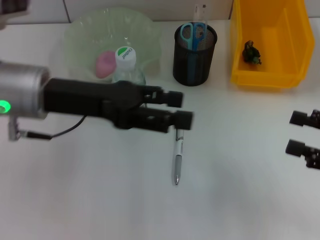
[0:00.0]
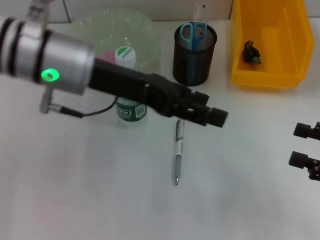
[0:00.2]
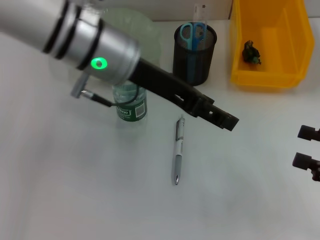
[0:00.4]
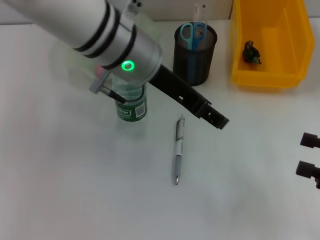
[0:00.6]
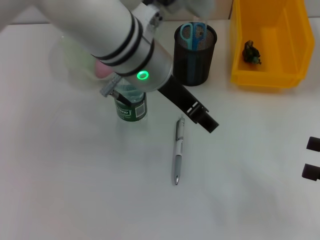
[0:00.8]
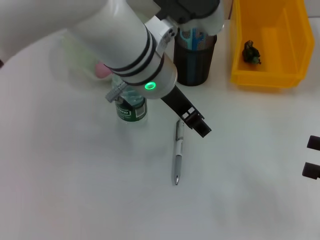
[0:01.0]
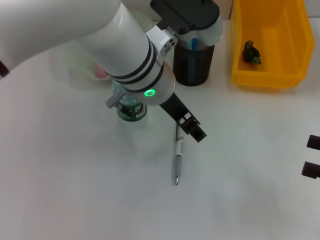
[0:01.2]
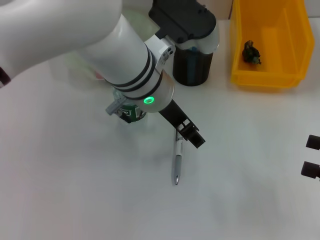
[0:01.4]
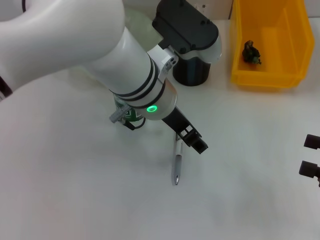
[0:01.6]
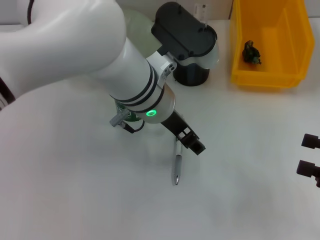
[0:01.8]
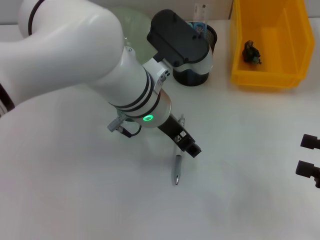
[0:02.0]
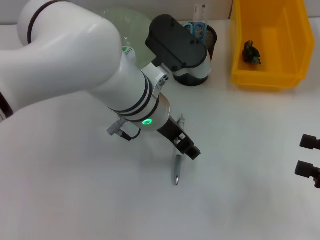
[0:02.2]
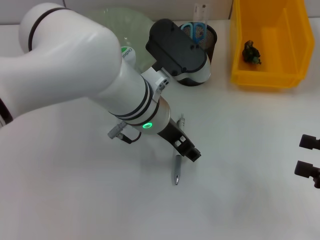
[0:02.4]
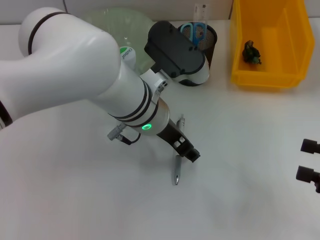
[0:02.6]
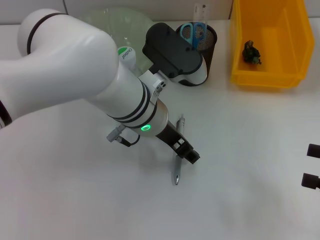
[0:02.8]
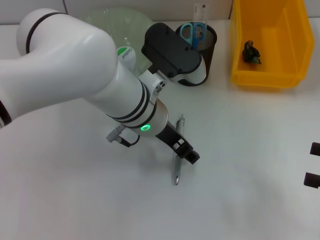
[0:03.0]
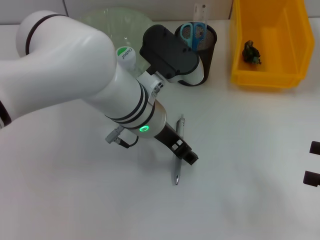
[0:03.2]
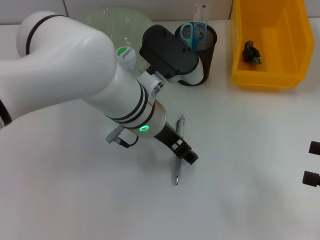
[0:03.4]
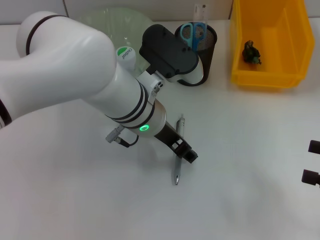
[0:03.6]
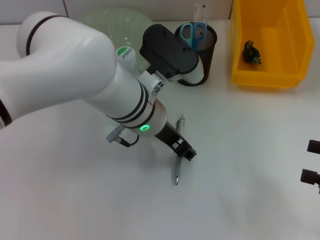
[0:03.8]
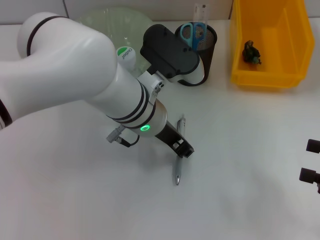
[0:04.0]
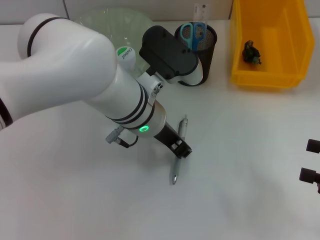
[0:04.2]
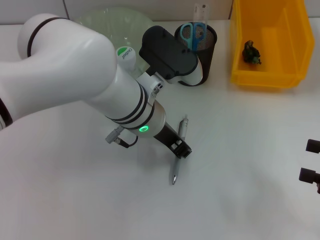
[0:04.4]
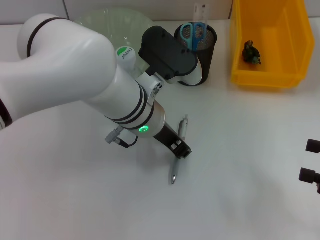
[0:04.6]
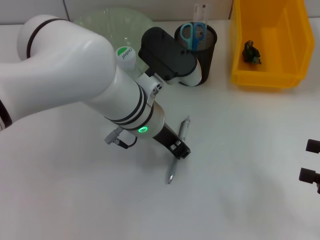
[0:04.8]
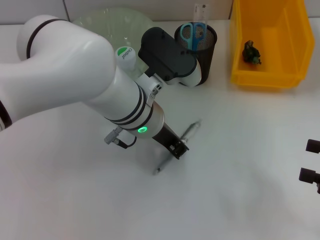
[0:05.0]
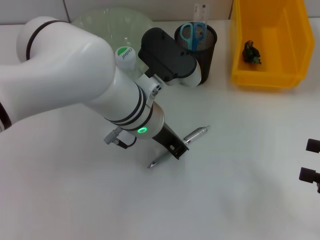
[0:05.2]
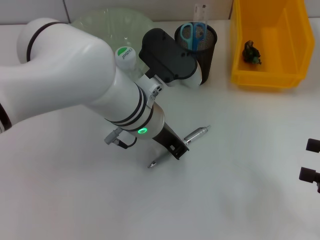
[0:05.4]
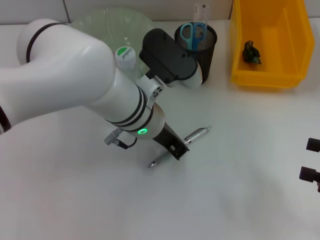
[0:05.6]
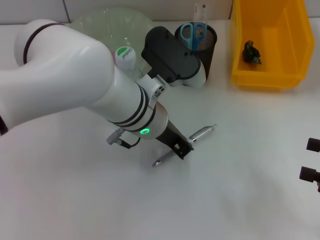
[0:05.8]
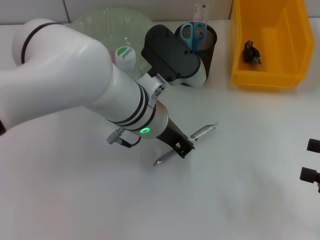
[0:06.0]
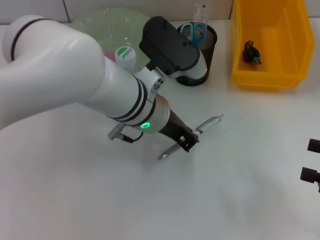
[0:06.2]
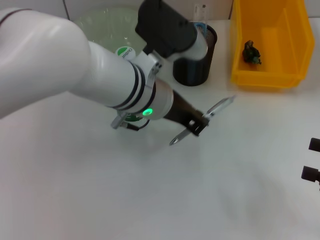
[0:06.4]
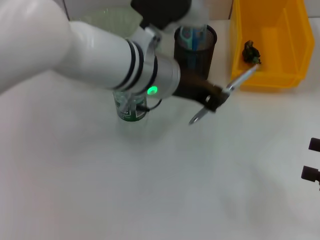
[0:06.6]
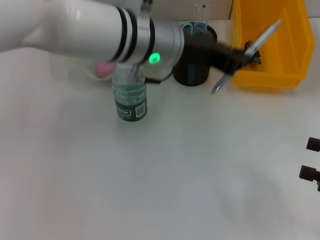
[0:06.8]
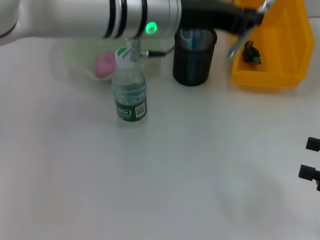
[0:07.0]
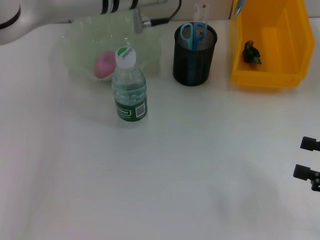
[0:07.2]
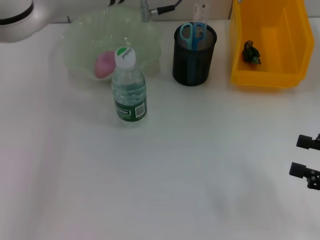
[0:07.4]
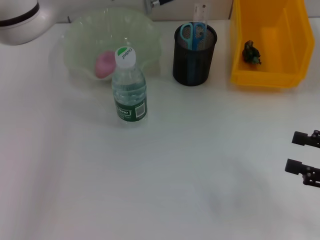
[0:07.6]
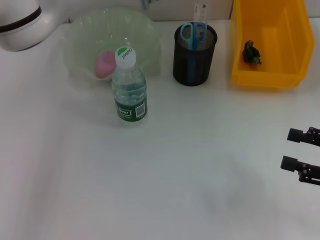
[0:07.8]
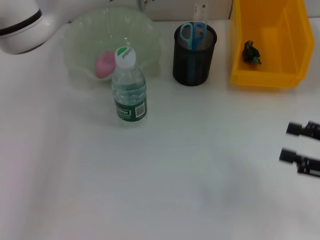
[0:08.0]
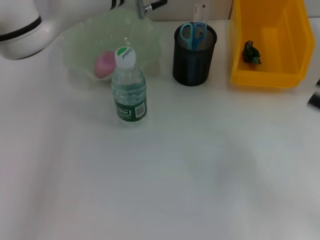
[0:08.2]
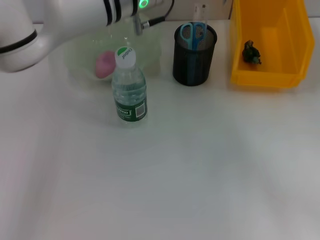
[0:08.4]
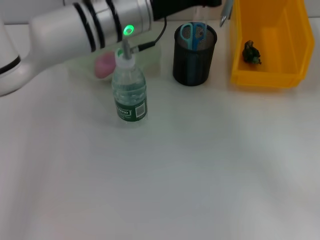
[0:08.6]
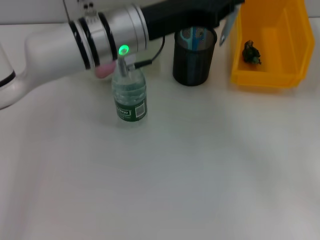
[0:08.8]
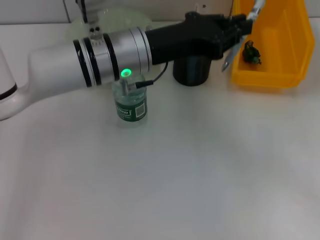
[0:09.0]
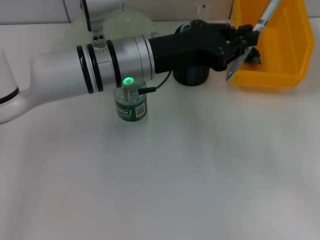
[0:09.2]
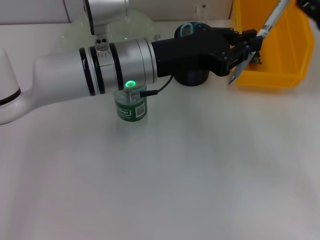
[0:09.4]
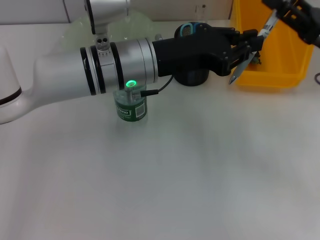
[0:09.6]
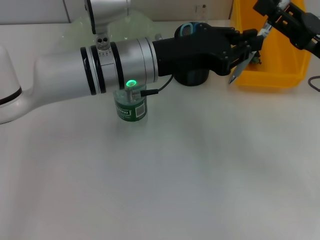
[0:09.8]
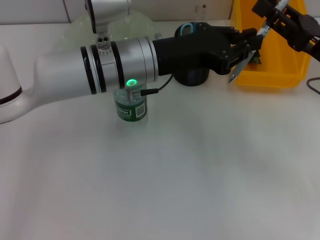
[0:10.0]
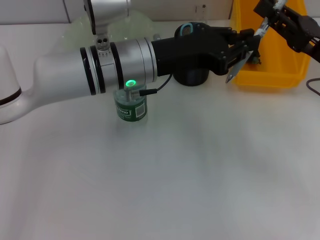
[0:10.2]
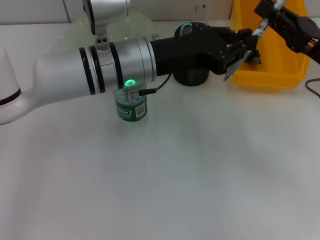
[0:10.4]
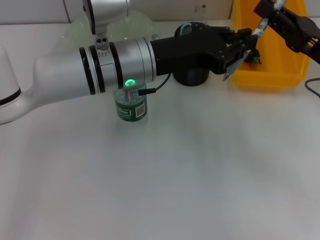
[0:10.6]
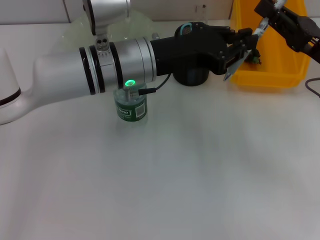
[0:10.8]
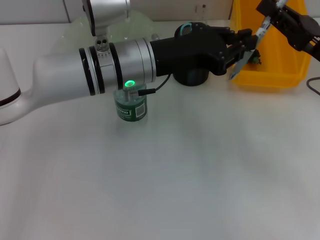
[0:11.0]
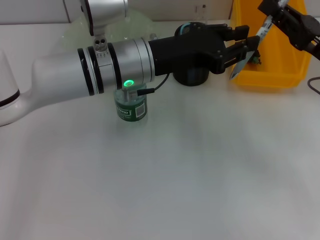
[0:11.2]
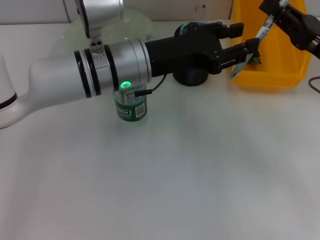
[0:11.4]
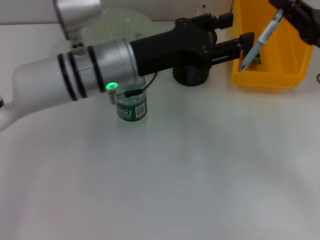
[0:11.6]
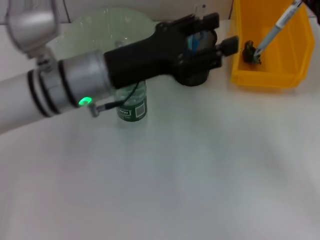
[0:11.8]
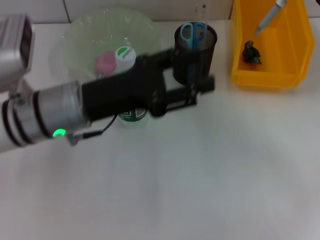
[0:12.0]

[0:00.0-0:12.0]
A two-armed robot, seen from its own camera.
Step, 0:00.0 to 0:05.6: Grab the gray spring-action pen with the left hand.
Step, 0:05.8 to 0:11.2: Pass the gray spring-action pen from the left hand to the right hand.
0:00.0 to 0:01.6: The left gripper shifts approximately 15 cm to the right.
0:03.0 to 0:04.4: The left gripper closes up.
0:04.4 to 0:06.0: The left gripper closes its fingers.
0:06.0 to 0:07.6: The left gripper shifts some 15 cm forward and upward.
0:07.6 to 0:09.0: The right gripper shifts approximately 10 cm forward and upward. The left gripper travels downward and backward by some 10 cm.
0:09.0 to 0:10.4: The right gripper heads to the left, covering approximately 5 cm, and closes.
0:10.4 to 0:12.0: The left gripper goes roughly 10 cm to the left and backward, and opens its fingers.

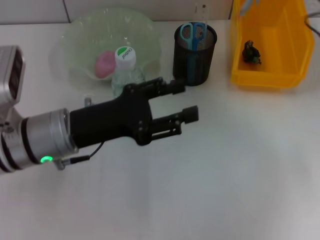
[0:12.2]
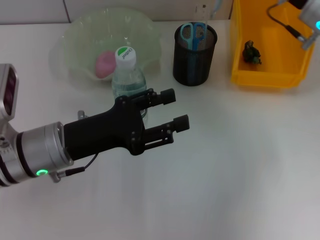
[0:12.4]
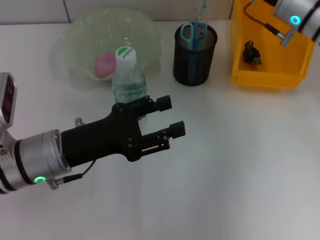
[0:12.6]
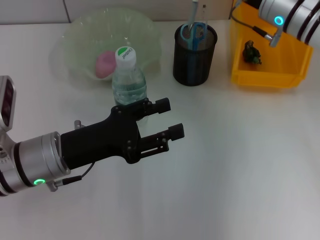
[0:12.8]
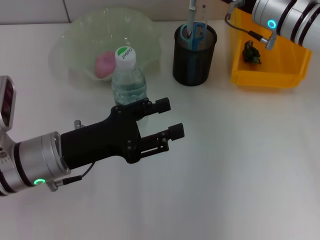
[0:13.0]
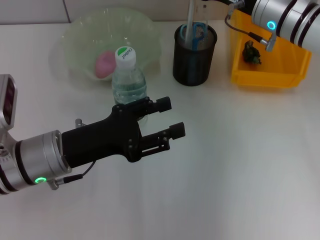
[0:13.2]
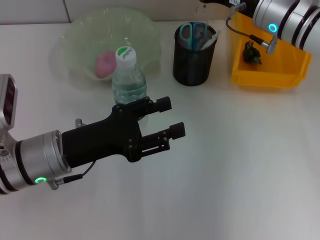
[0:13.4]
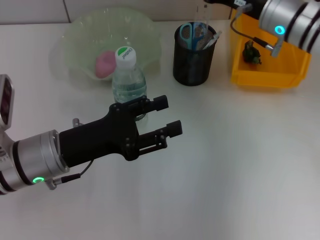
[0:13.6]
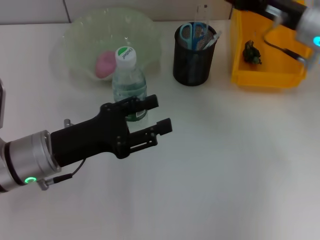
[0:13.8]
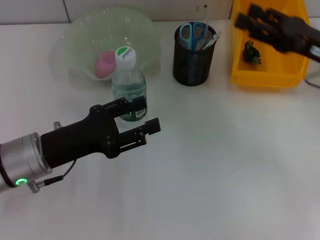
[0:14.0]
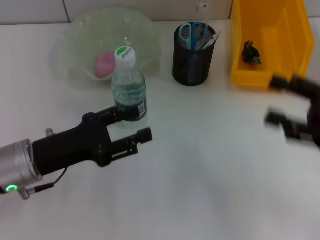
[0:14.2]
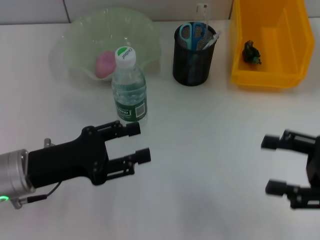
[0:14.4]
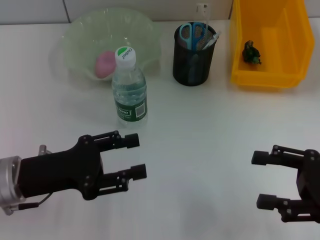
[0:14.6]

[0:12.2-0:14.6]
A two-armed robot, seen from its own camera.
Step, 0:12.2 to 0:13.8: Place the gray spring-action pen into the pen holder with the right hand.
0:12.2 to 0:13.4: The right gripper goes roughly 10 cm to the left.
0:13.4 to 0:14.6: The left gripper ends up roughly 5 cm from where it was. Meanwhile the right gripper moves backward and to the right, roughly 25 cm, and opens its fingers.

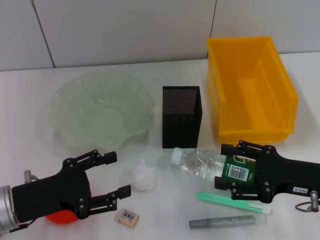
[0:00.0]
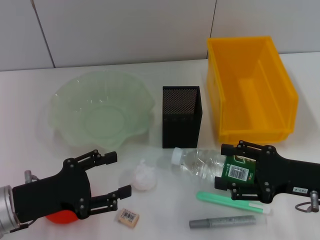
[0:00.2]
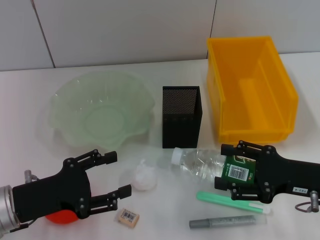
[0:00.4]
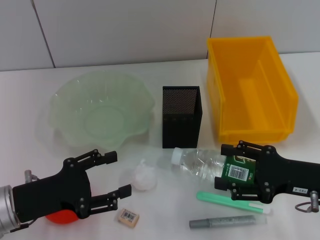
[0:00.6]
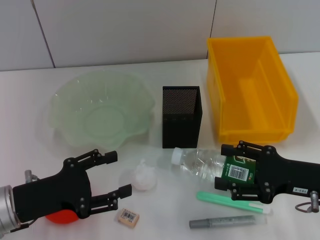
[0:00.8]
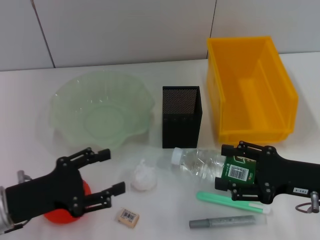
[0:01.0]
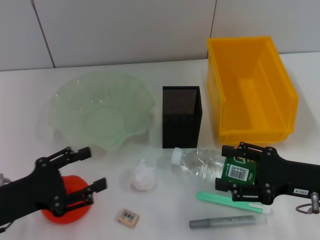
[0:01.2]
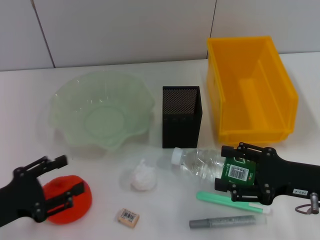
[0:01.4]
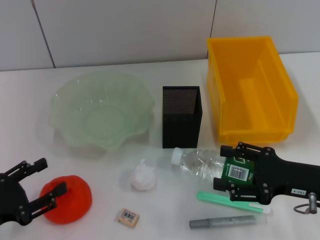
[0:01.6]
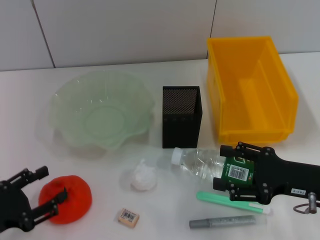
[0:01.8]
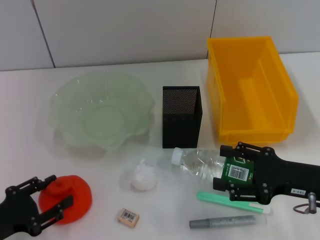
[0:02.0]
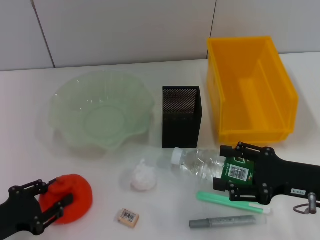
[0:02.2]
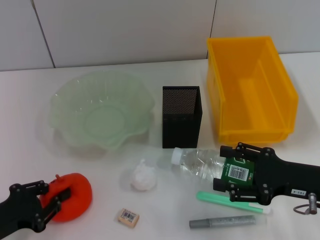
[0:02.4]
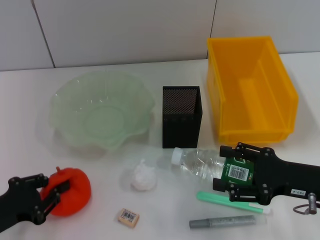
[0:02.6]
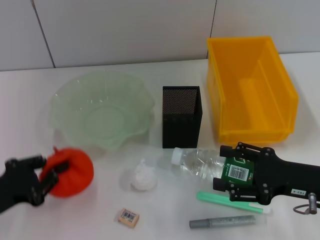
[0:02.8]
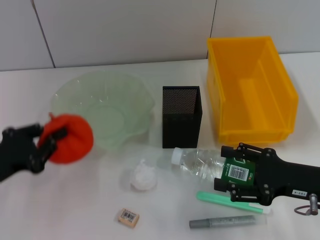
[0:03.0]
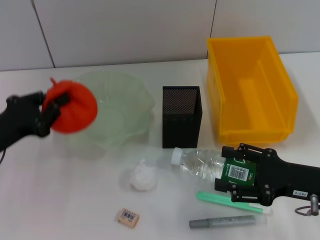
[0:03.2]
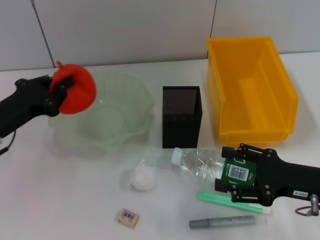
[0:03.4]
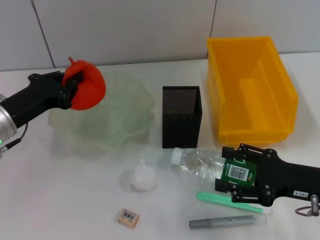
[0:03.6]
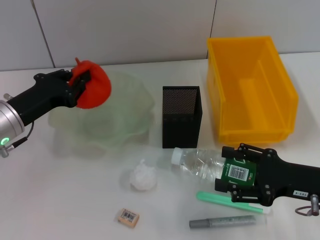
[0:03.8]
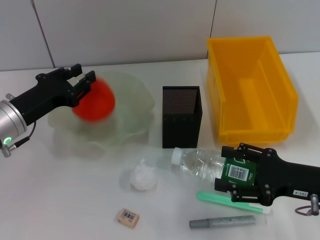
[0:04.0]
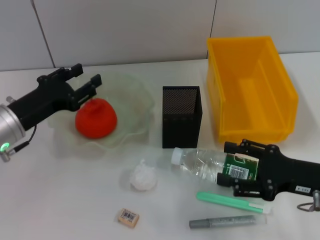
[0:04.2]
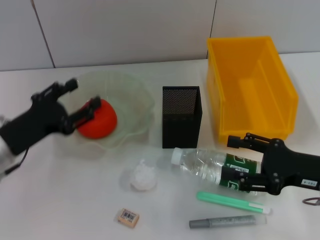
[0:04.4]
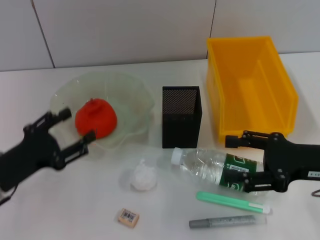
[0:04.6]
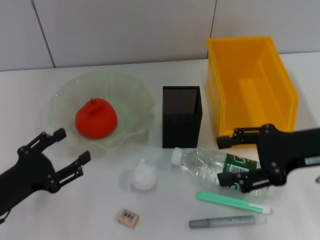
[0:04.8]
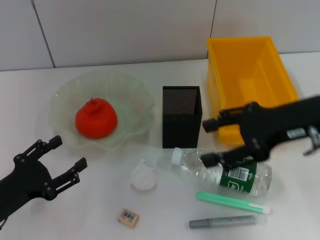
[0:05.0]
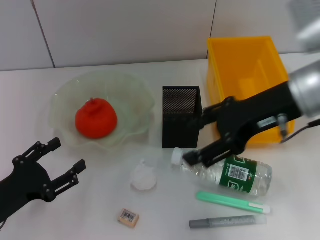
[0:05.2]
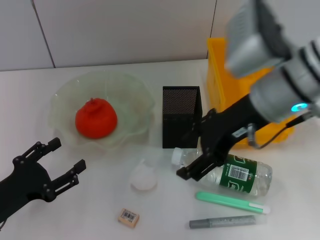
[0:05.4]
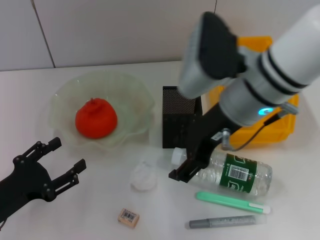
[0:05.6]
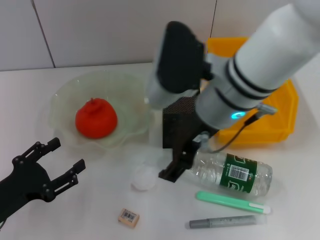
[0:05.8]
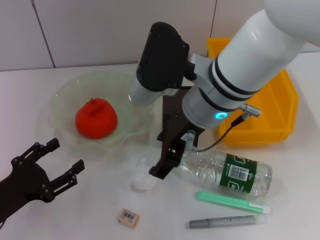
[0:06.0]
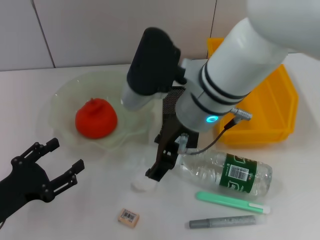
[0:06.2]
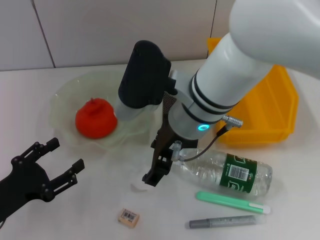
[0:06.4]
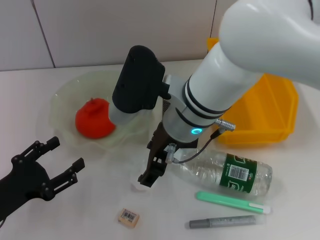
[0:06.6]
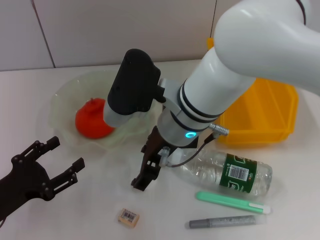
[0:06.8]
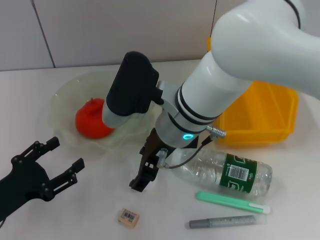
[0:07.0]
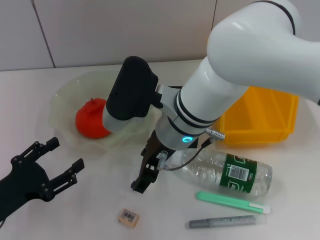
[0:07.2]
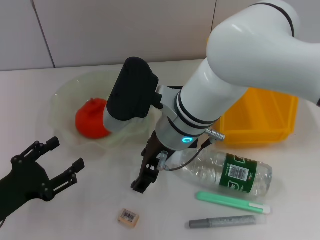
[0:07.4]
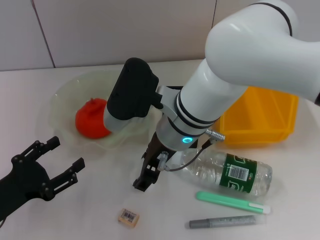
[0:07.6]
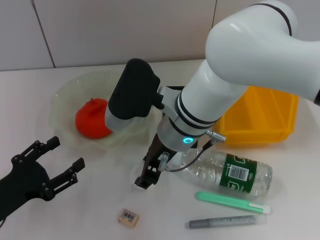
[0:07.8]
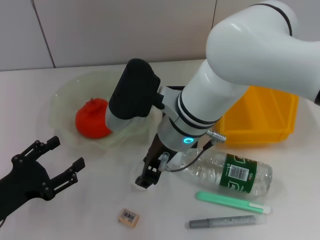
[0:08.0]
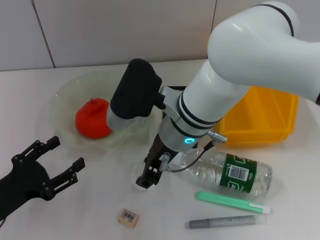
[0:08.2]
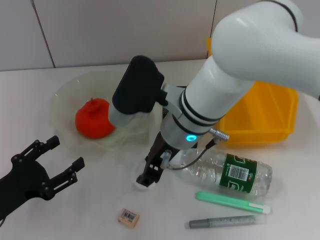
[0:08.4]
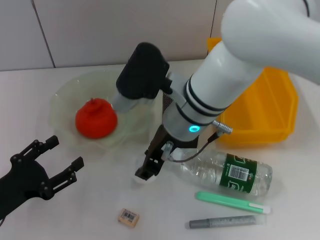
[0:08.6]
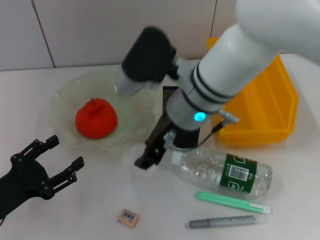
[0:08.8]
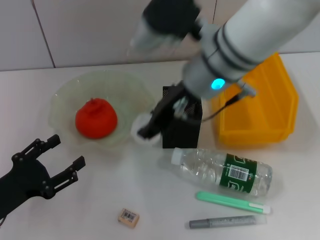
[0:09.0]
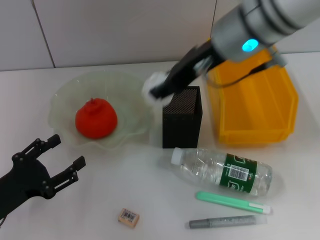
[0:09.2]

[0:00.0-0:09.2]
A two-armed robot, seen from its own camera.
Step, 0:00.0 to 0:02.4: Grab the orange with the left hand.
Step, 0:02.6 to 0:04.2: Place the orange into the fruit bowl with the left hand.
Step, 0:04.4 to 0:08.0: Grab the paper ball with the right hand.
0:00.0 to 0:01.6: The left gripper shifts some 5 cm to the left.
0:01.6 to 0:03.0: The left gripper moves some 5 cm, and closes its fingers.
0:03.0 to 0:04.6: The right gripper moves roughly 5 cm. The left gripper moves some 10 cm forward and comes back, and opens up.
0:04.6 to 0:06.2: The right gripper moves to the left, some 25 cm.
0:06.2 to 0:07.6: The right gripper ends up approximately 5 cm from where it was.
0:07.6 to 0:09.2: The right gripper travels upward and to the right by some 15 cm, and closes its fingers.
